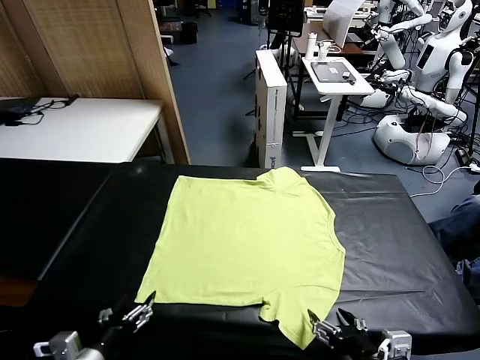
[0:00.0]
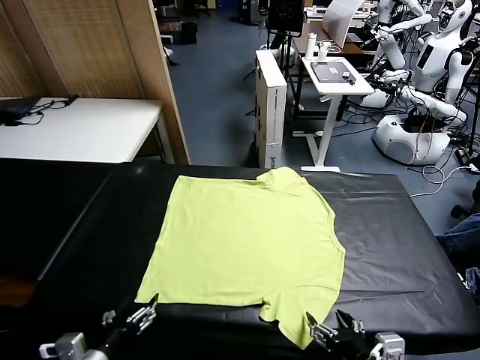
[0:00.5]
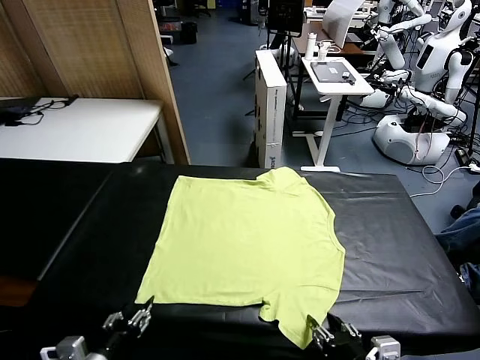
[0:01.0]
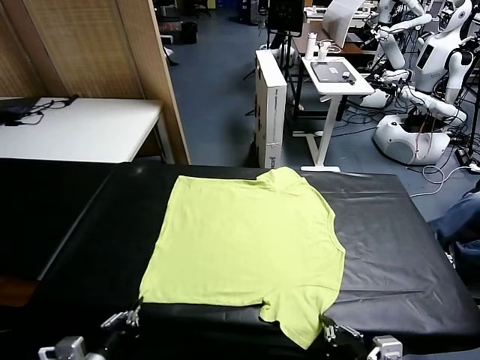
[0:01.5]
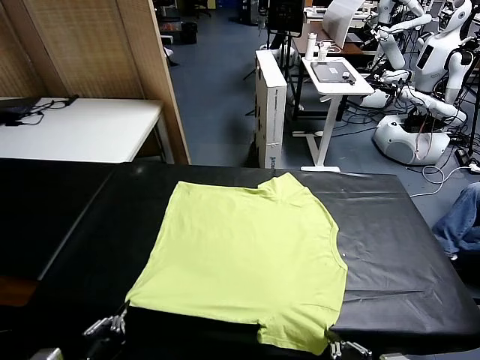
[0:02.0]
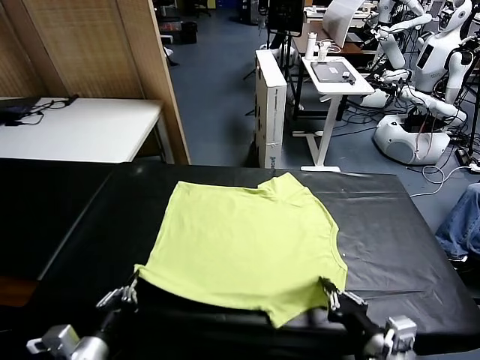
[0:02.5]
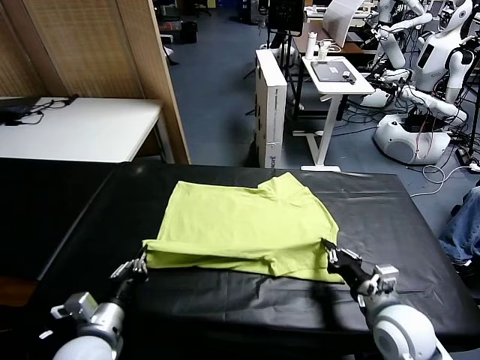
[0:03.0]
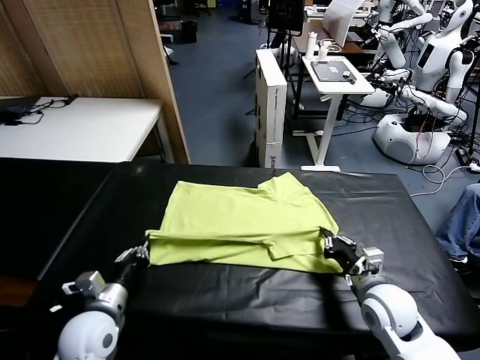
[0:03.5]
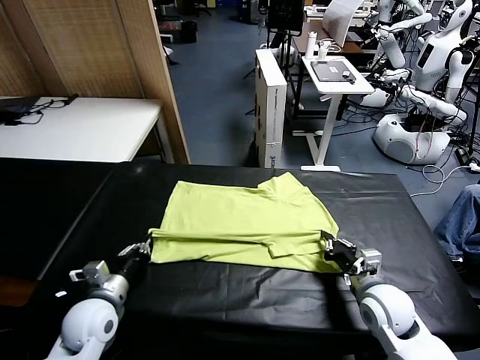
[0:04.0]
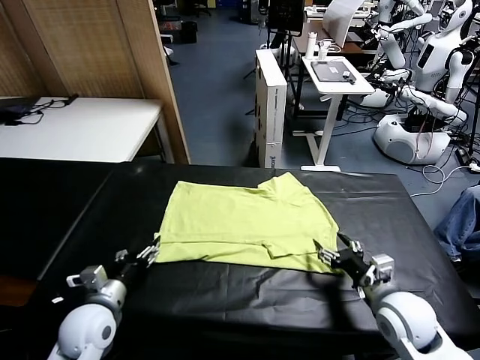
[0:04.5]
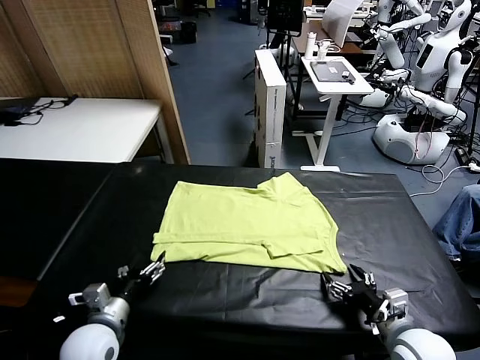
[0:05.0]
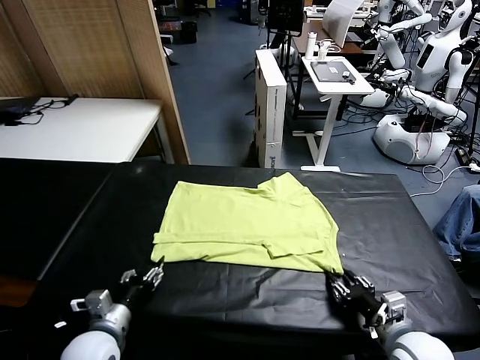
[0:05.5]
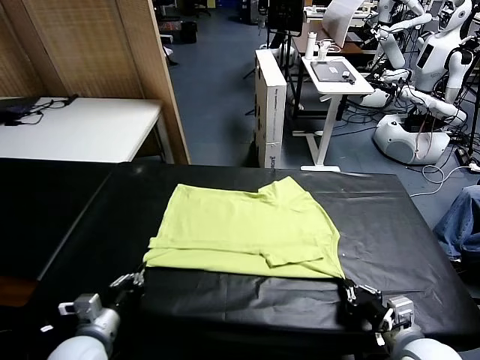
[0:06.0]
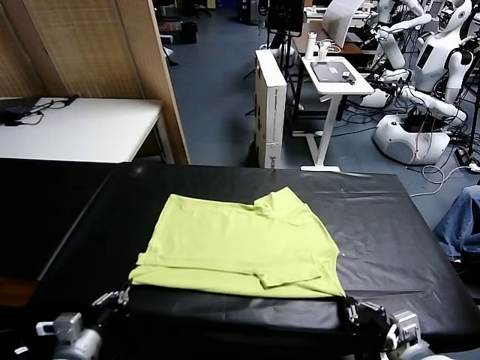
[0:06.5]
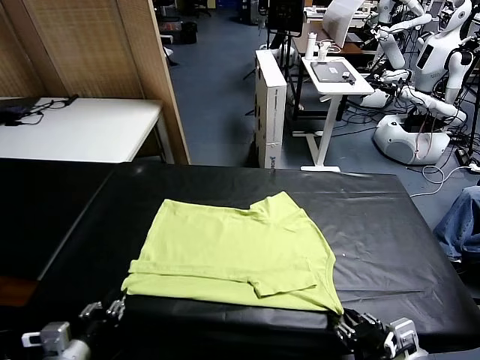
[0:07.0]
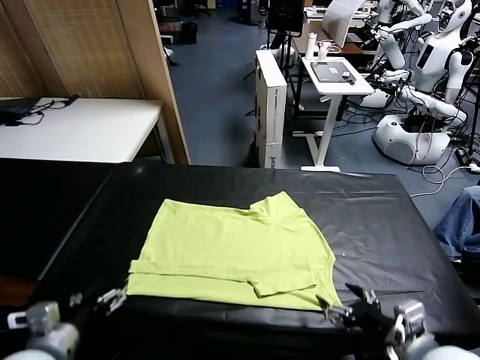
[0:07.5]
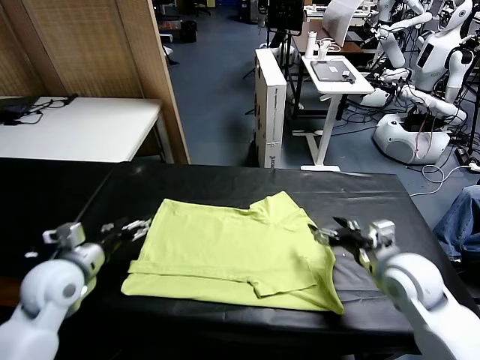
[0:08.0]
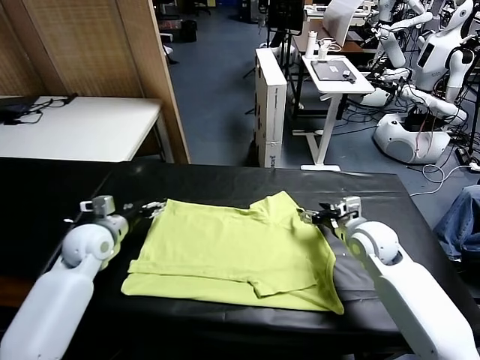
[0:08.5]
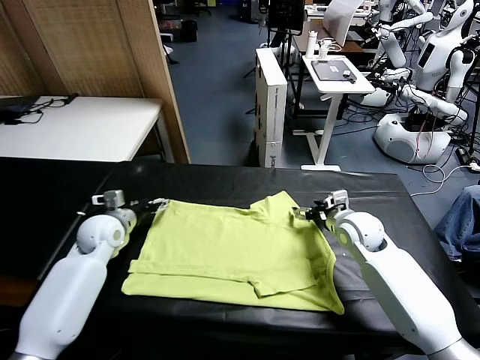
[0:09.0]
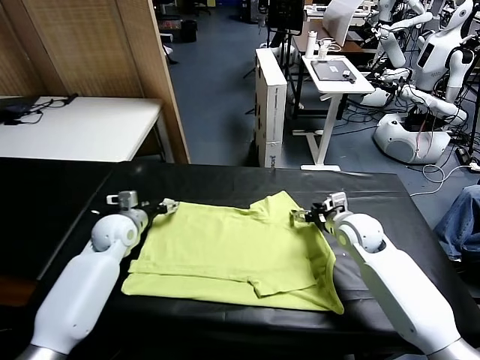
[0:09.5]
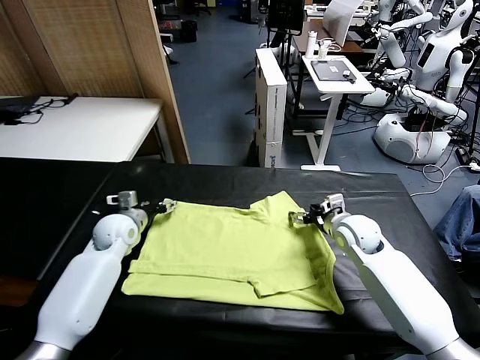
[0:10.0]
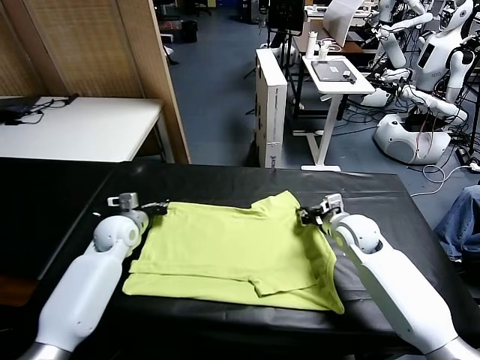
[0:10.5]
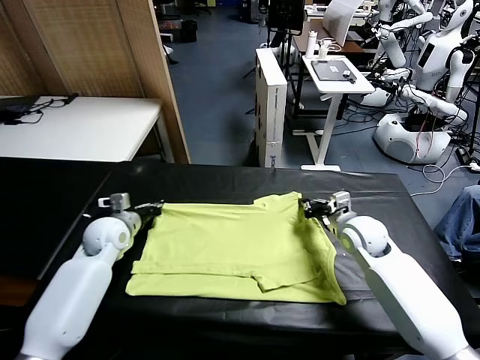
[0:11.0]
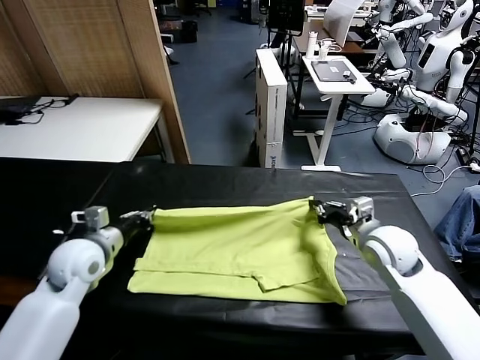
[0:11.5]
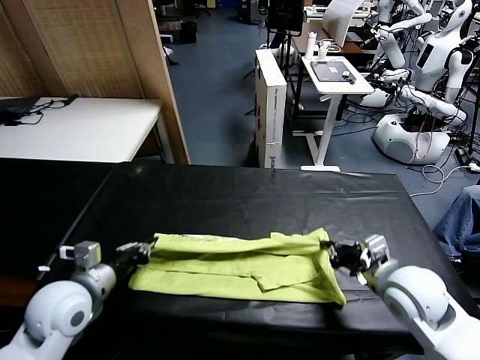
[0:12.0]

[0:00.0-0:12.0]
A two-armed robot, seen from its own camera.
Task of the whole recording: fold and organize the clothes.
Step, 0:00.0 to 0:01.5: use both grippers simultaneously to clamp the lower edge of the clothing fabric.
Step, 0:02.0 to 0:04.0: use both grippers to drag the lower edge of the fabric forward and fold it over the upper edge.
Step, 0:05.0 to 0:07.0: Drag the clothes downward with both gripper.
Step, 0:07.5 to 0:10.5: use both grippers simultaneously to clamp the upper edge of the clothing fabric.
0:02.0 to 0:04.0: Both grippers travel together forward, about 15 cm. The right gripper opens.
0:04.0 to 0:06.0: Both grippers move backward, some 10 cm. The right gripper closes, then opens again, while the left gripper opens, then closes again.
0:06.0 to 0:08.0: The left gripper goes about 20 cm forward and upward, and opens, while the right gripper heads forward, covering some 20 cm.
0:08.0 to 0:10.0: The right gripper heads forward, covering some 5 cm, and closes its fingers; the left gripper heads forward and downward, covering some 15 cm, and closes up.
0:10.0 to 0:12.0: Both grippers travel together backward, about 20 cm. The left gripper closes up.

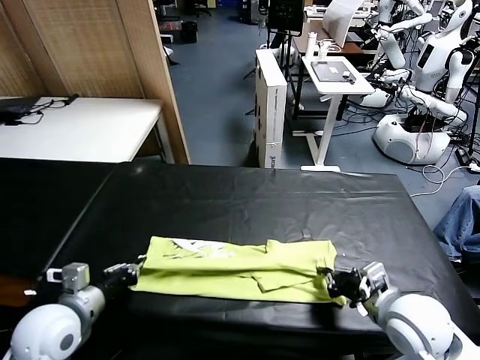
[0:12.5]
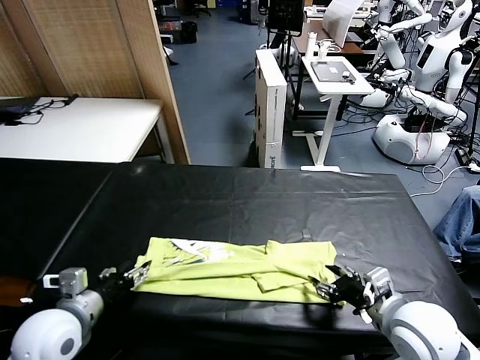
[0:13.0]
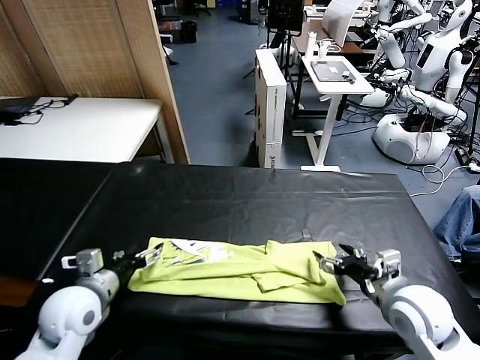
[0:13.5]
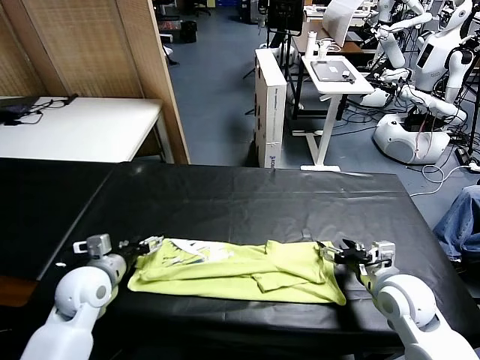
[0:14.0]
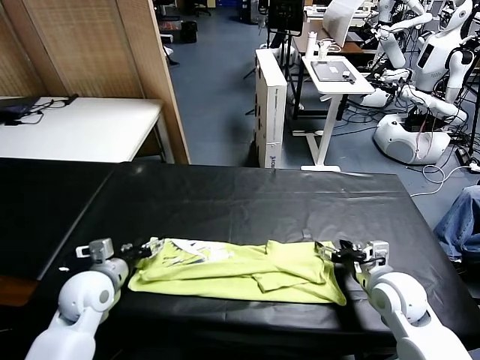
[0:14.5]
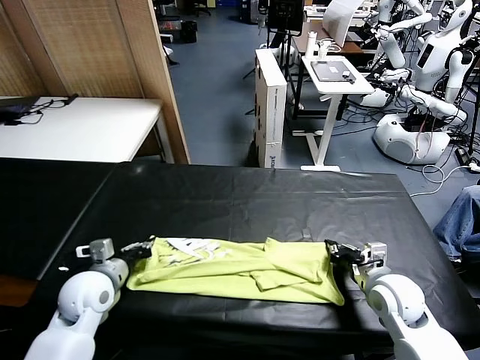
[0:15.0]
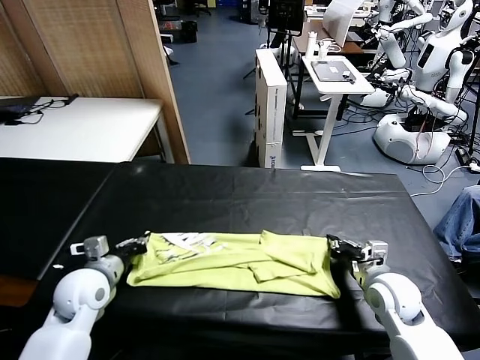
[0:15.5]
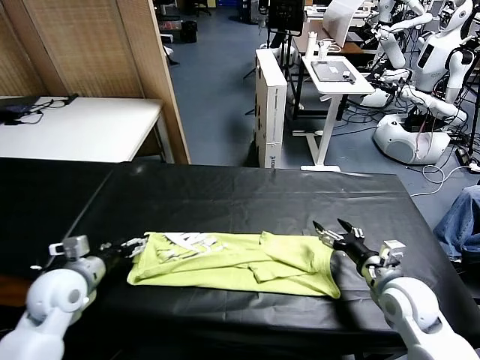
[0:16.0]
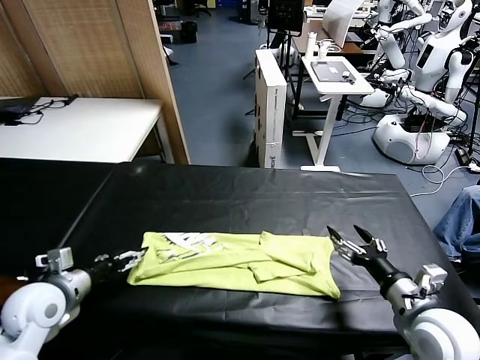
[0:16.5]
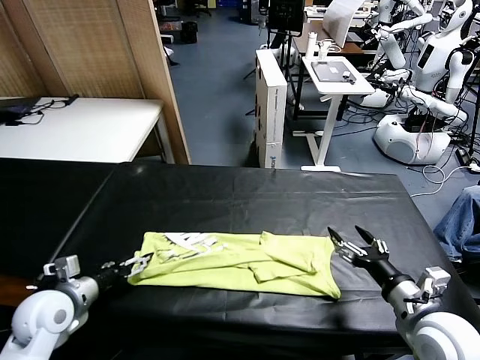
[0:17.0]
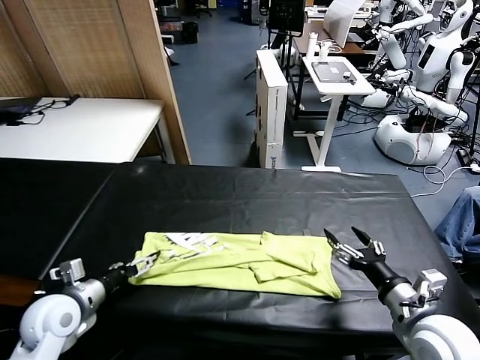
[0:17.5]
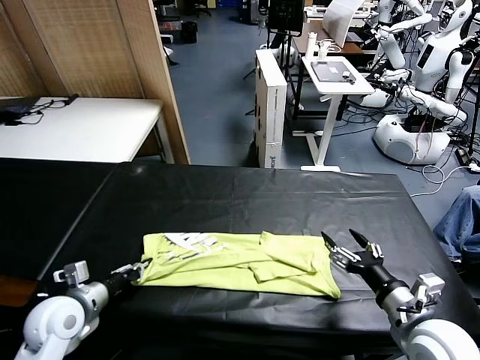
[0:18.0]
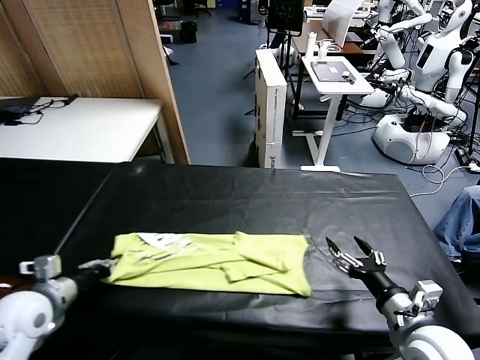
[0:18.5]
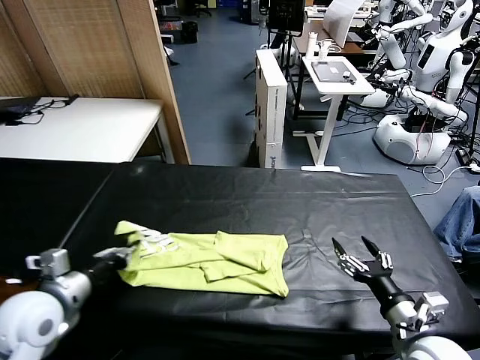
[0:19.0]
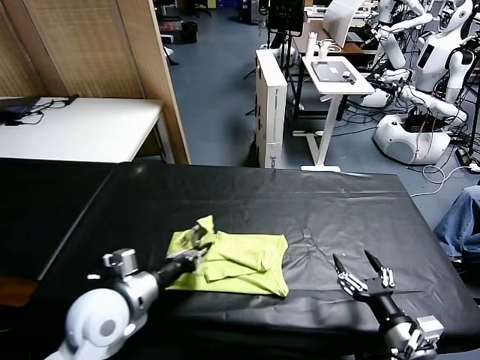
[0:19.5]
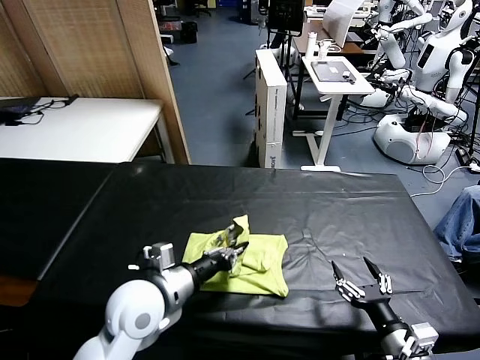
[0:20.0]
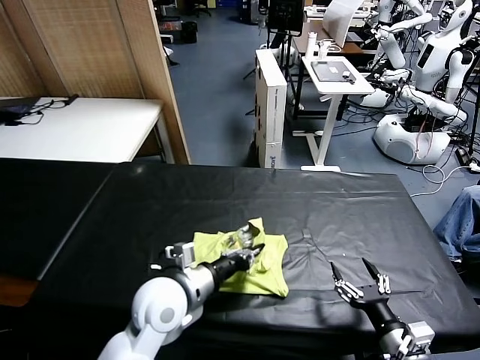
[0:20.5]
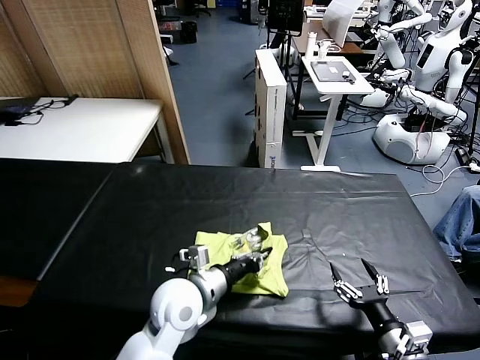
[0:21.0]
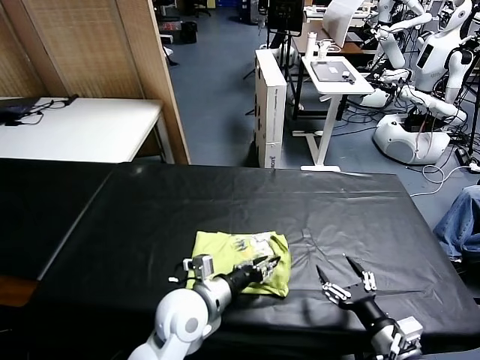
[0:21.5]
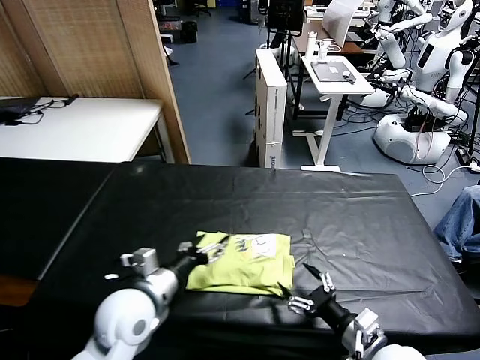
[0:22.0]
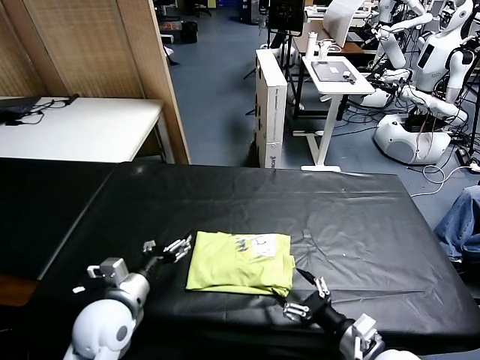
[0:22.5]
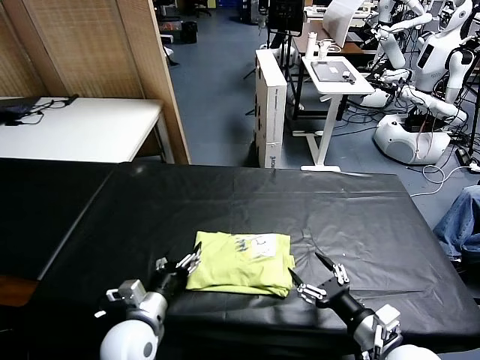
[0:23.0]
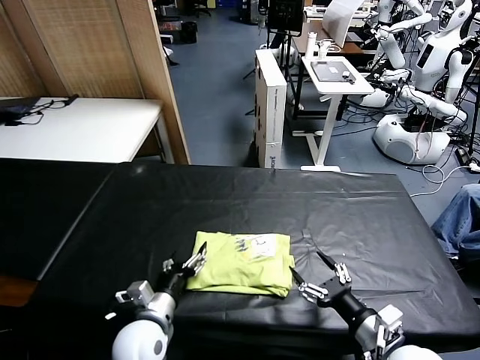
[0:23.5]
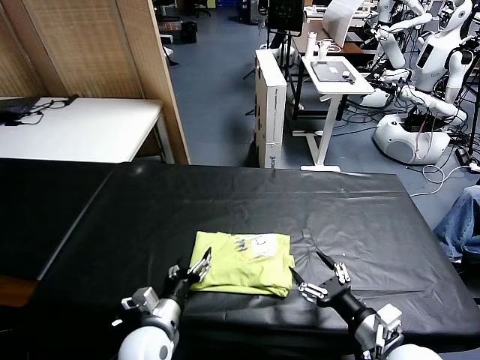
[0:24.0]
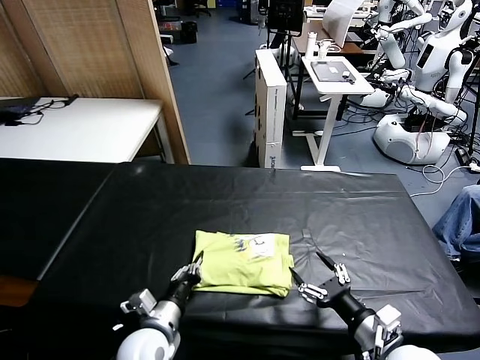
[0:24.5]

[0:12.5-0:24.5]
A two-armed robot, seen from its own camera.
Task of the whole recording: fold and organize the clothes.
Step, 0:13.5 to 0:18.0: use the left gripper to clamp the left edge of the fabric.
Step, 0:18.5 to 0:21.5: use the left gripper to drag the left edge of the fabric to the left and folds it over the right edge.
0:12.5 to 0:14.5: The left gripper is displaced forward by about 10 cm, and opens up. The right gripper shifts roughly 10 cm forward and downward, and closes its fingers.
0:14.5 to 0:16.5: The right gripper is displaced backward and upward by about 10 cm, and opens up; the left gripper goes about 5 cm to the left, and closes, then opens again.
0:16.5 to 0:18.5: The left gripper closes its fingers.
0:18.5 to 0:20.5: The left gripper moves to the right, some 25 cm, while the right gripper moves about 5 cm.
0:20.5 to 0:22.5: The left gripper travels to the left by some 10 cm, and opens up.
0:22.5 to 0:24.5: The left gripper travels downward and to the right by about 10 cm, and closes up.

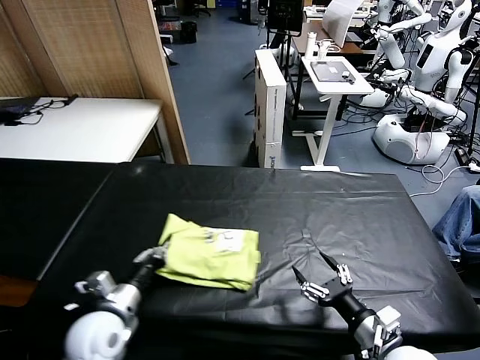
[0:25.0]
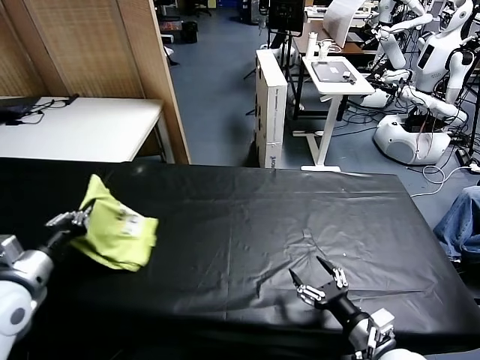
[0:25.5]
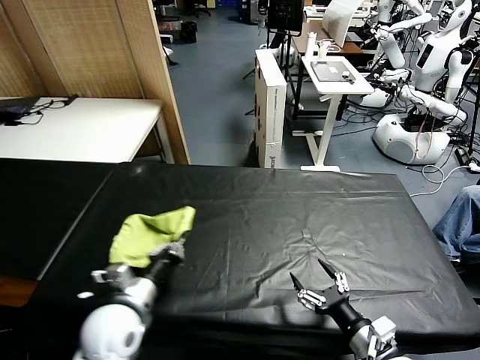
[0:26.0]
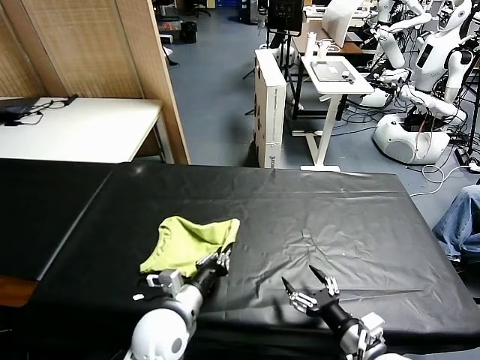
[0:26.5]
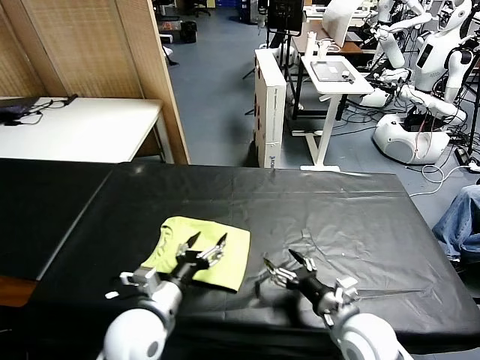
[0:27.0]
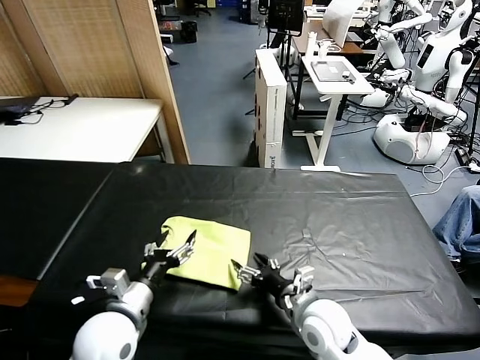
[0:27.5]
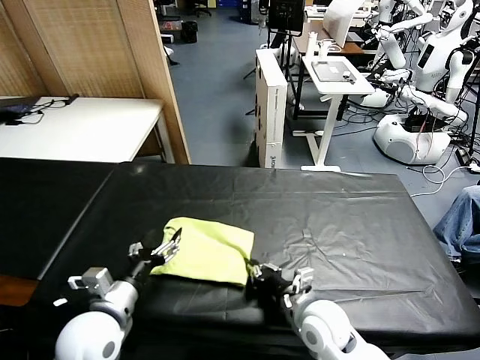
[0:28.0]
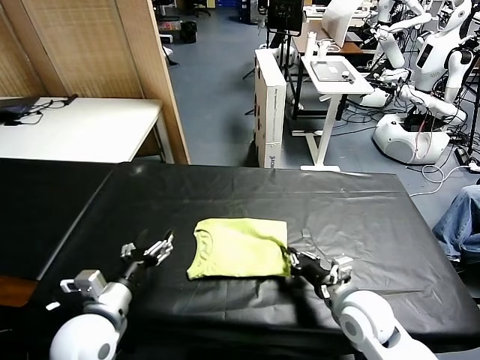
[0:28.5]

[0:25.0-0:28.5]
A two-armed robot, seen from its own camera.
Task of the whole recording: fold and organize the clothes.
0:25.0 to 0:27.0: The right gripper is displaced forward and to the left by some 10 cm; the left gripper travels to the right by about 10 cm, and opens.
0:27.0 to 0:28.5: The left gripper moves to the left, about 10 cm. Meanwhile the right gripper closes.
